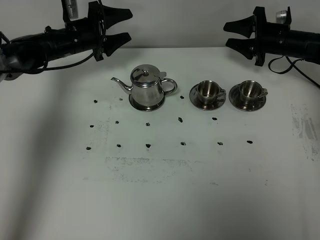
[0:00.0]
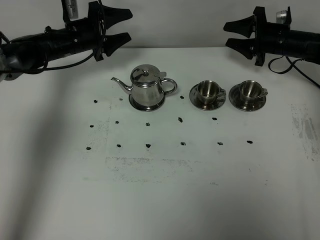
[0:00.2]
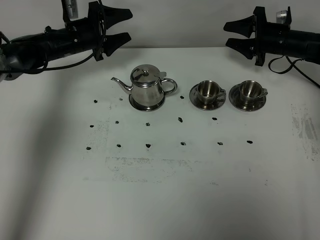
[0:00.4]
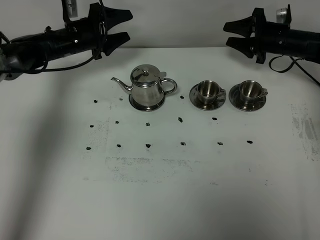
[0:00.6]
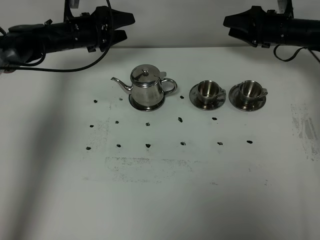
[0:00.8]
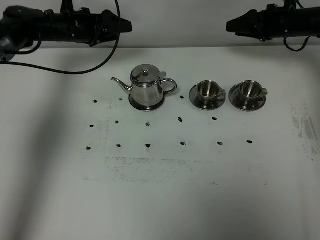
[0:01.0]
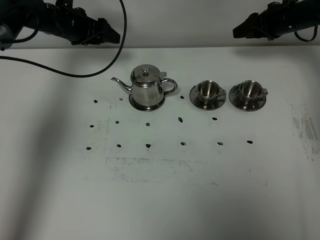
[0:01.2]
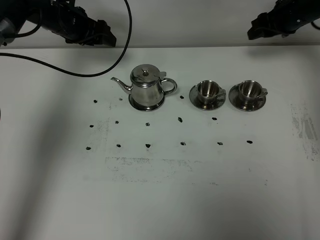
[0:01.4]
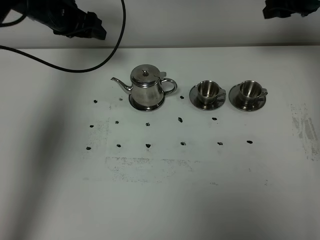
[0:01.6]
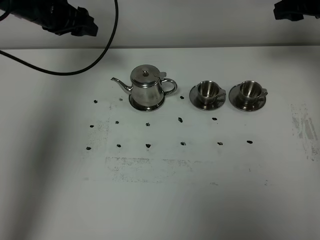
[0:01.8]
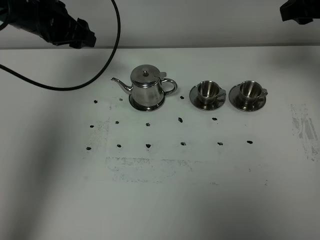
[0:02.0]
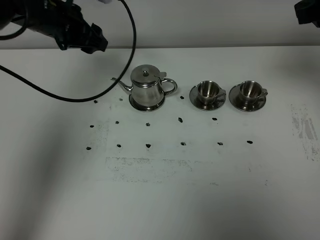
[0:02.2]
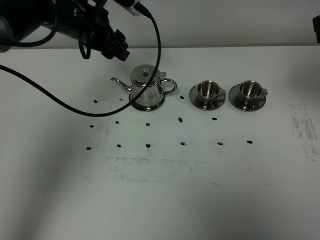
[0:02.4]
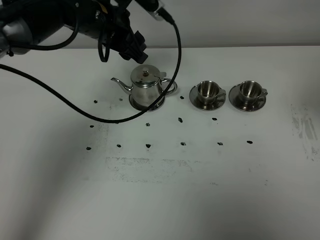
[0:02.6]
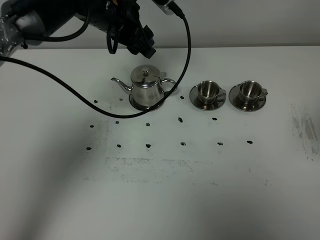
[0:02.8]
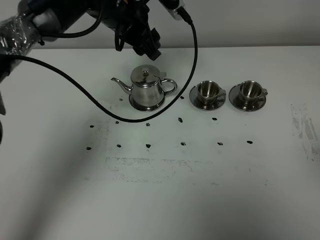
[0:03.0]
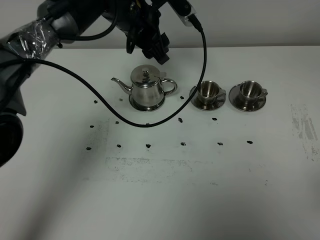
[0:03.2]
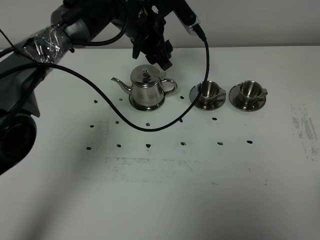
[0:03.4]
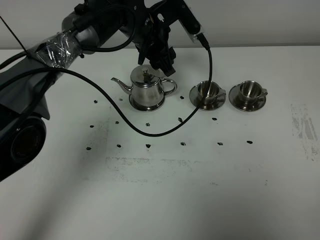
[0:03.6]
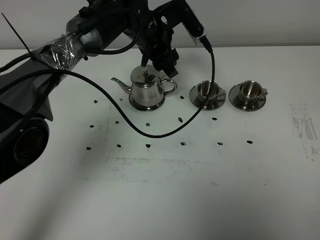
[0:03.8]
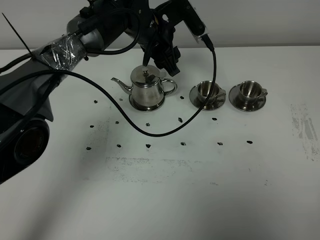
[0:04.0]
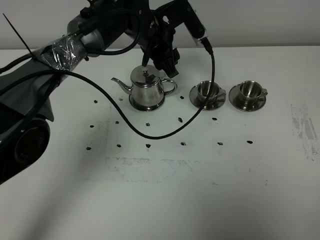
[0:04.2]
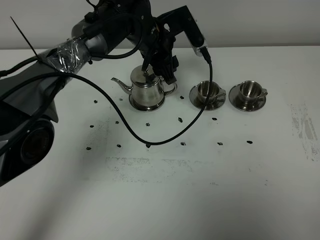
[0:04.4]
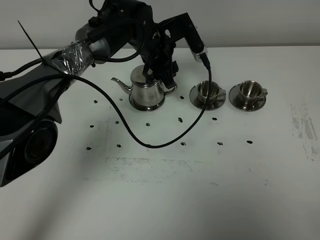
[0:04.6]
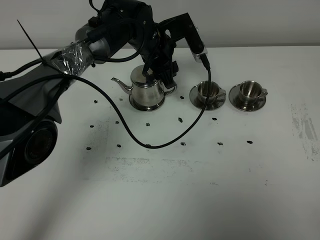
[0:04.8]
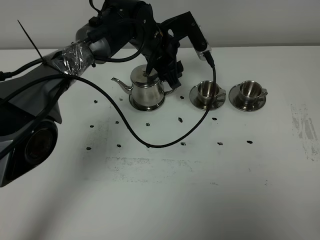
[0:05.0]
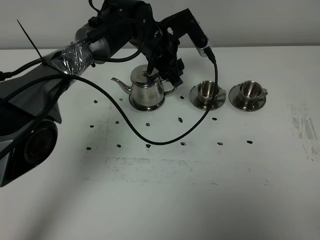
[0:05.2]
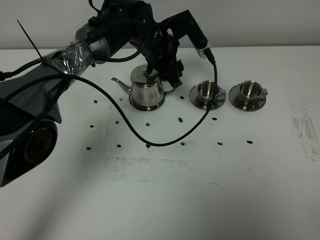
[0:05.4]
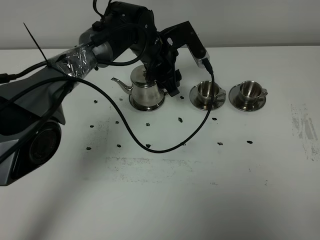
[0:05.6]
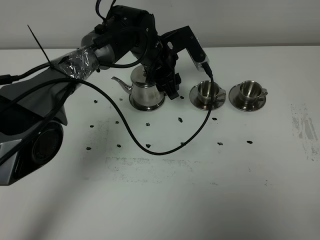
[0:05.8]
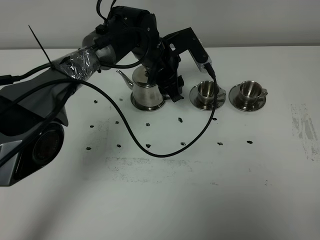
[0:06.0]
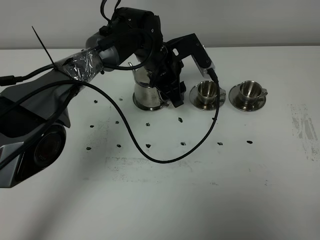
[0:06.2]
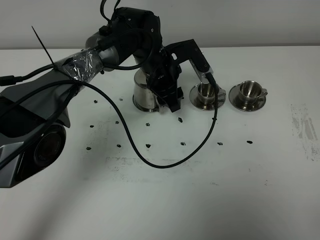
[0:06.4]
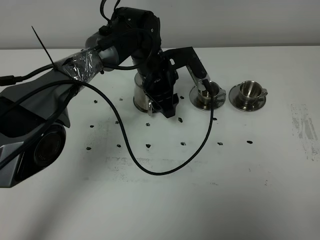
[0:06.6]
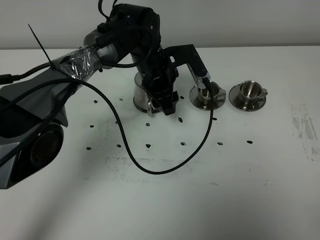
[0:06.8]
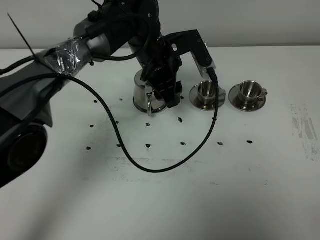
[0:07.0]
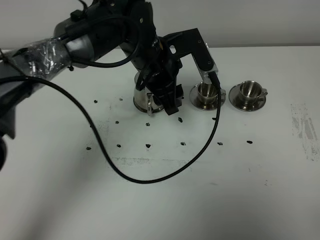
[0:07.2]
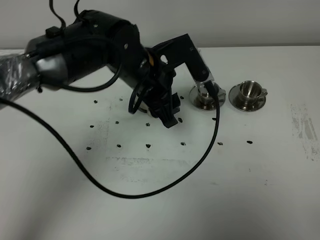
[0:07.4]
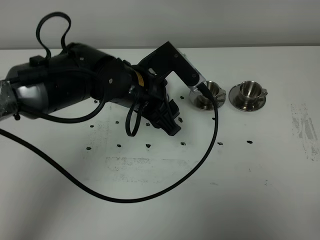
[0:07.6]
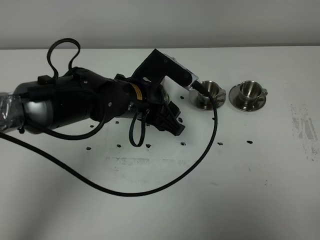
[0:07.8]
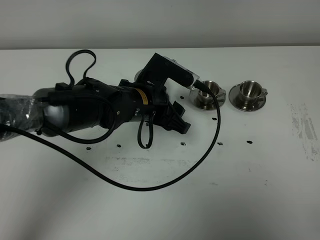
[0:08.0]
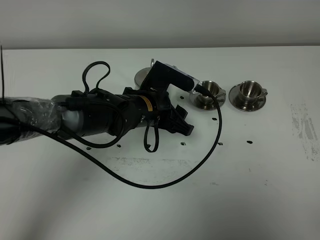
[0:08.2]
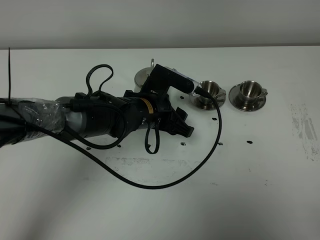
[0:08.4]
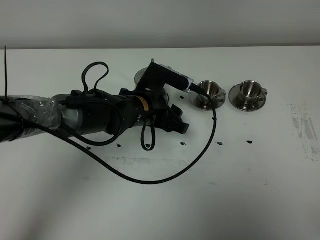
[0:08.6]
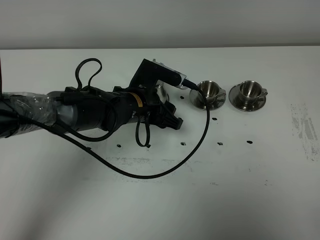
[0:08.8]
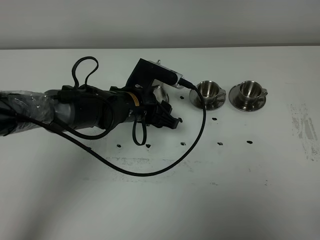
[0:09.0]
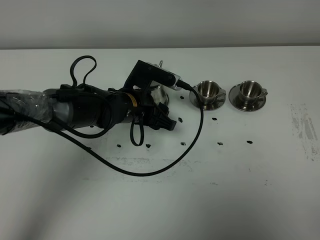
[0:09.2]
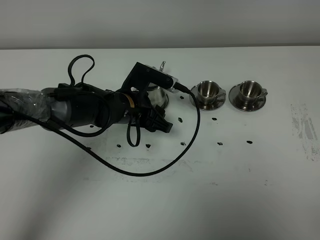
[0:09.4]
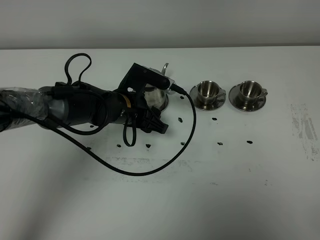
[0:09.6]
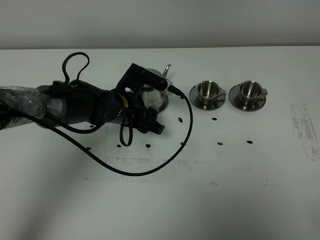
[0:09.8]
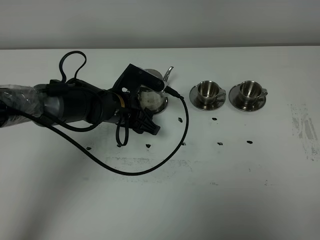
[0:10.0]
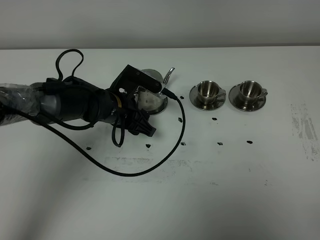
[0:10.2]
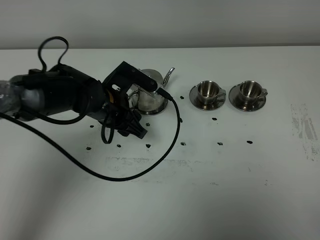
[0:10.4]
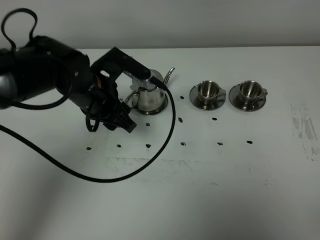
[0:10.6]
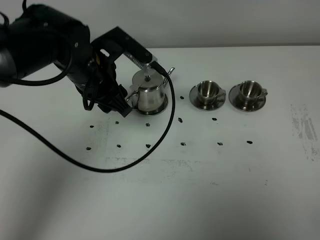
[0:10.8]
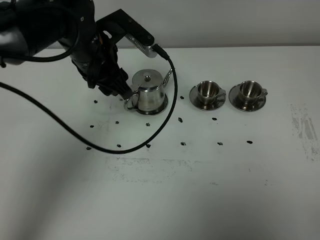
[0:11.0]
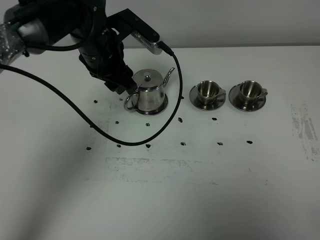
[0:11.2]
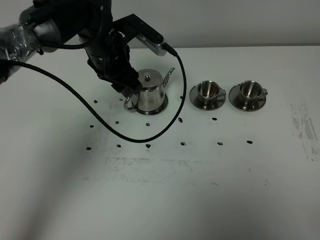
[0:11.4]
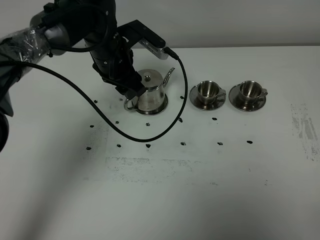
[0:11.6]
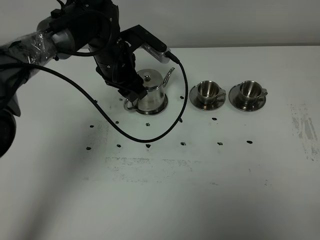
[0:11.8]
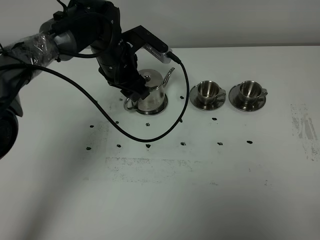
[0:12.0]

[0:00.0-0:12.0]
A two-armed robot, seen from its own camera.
Task of the whole recording: grasp the stainless steel teapot and pour the tea into the two stainless steel teacups one by one, put the stainless steel teapot back in its original place.
0:00.0 to 0:01.6: The right gripper is displaced upward by some 15 cm; the left gripper heads upward, covering some 10 cm.
0:01.6 to 0:03.0: The right gripper goes approximately 40 cm backward; the left gripper shifts approximately 15 cm to the right and backward.
0:03.0 to 0:04.4: The right gripper shifts roughly 10 cm downward and backward. The left gripper moves downward, approximately 5 cm.
0:04.4 to 0:06.0: There are only small adjustments of the grippers.
0:06.0 to 0:07.6: The left gripper travels backward by about 15 cm.
0:07.6 to 0:09.0: The left gripper shifts some 10 cm downward.
0:09.0 to 0:10.4: The left gripper moves some 5 cm.
0:10.4 to 0:12.0: The left gripper travels forward by roughly 10 cm.

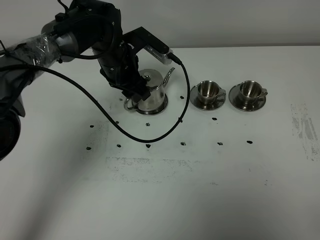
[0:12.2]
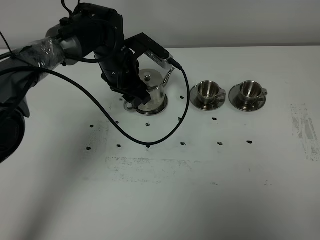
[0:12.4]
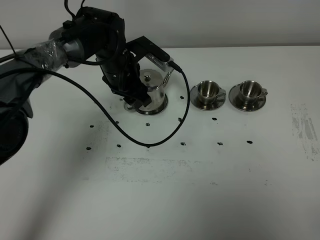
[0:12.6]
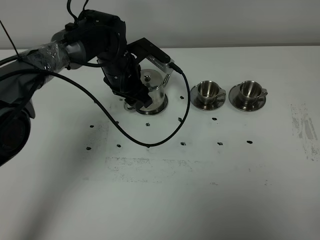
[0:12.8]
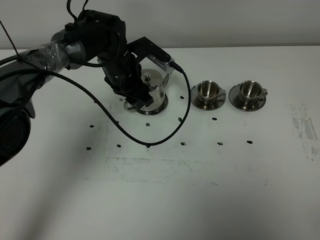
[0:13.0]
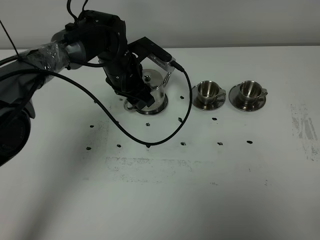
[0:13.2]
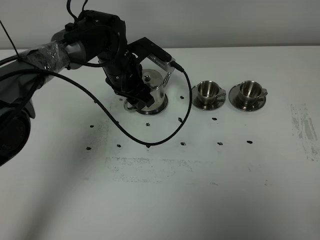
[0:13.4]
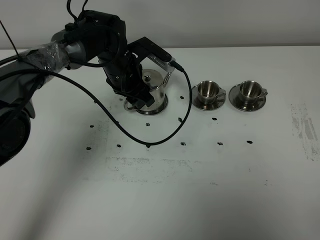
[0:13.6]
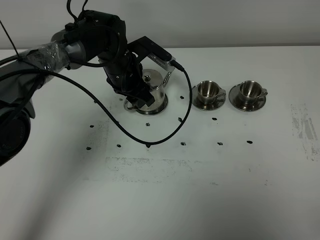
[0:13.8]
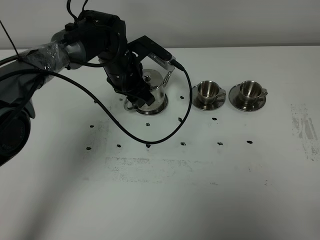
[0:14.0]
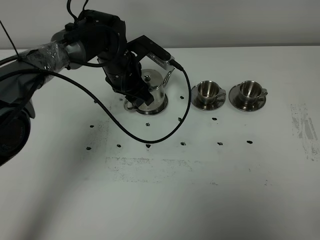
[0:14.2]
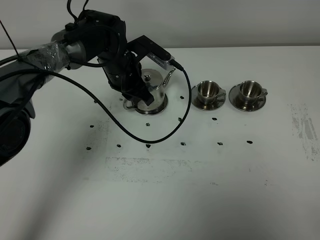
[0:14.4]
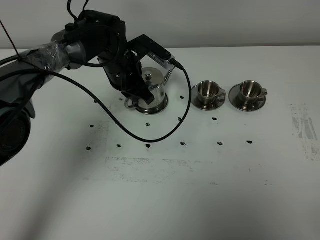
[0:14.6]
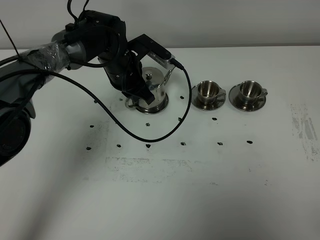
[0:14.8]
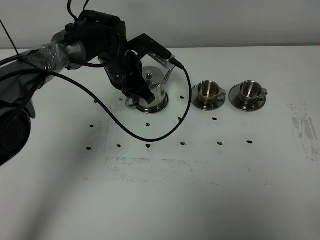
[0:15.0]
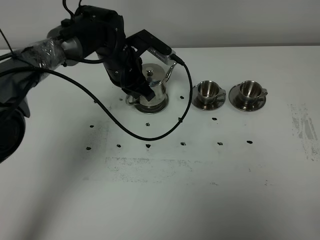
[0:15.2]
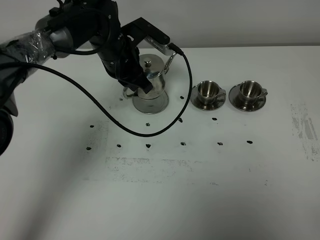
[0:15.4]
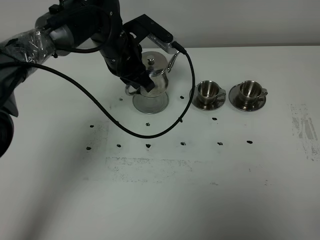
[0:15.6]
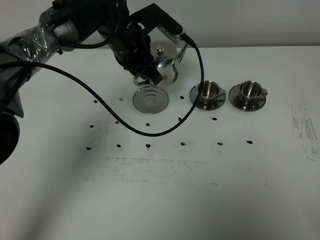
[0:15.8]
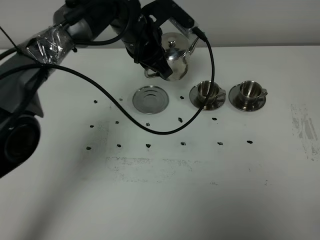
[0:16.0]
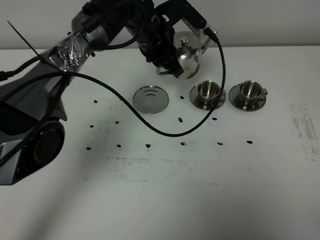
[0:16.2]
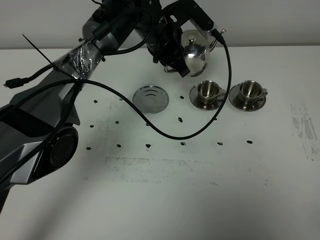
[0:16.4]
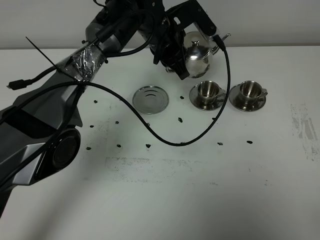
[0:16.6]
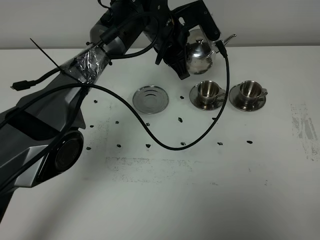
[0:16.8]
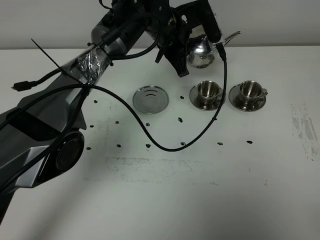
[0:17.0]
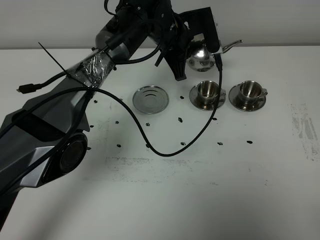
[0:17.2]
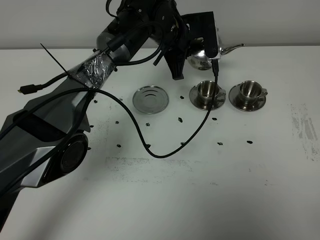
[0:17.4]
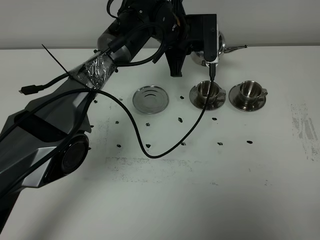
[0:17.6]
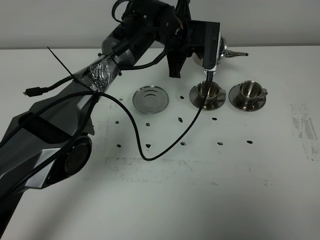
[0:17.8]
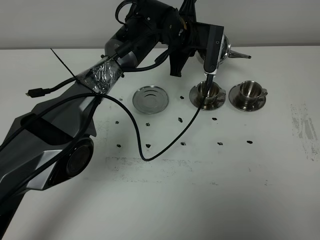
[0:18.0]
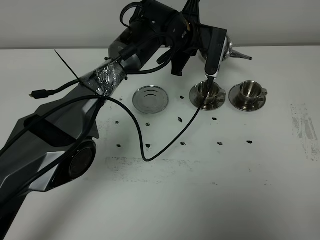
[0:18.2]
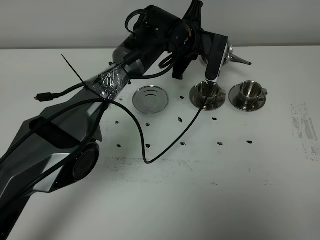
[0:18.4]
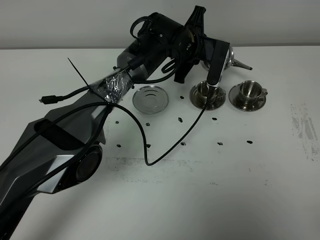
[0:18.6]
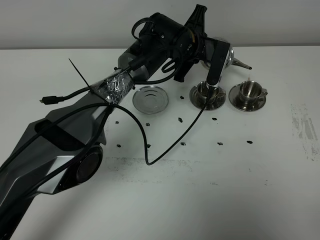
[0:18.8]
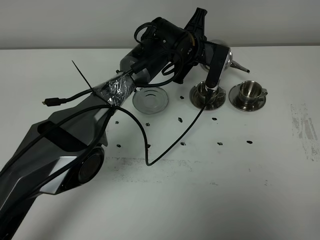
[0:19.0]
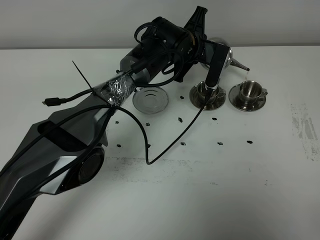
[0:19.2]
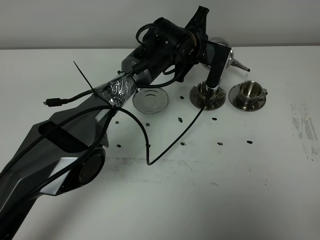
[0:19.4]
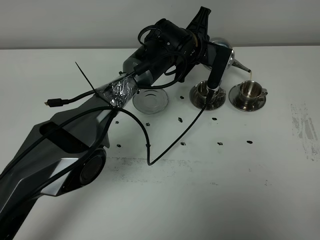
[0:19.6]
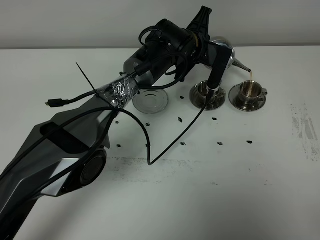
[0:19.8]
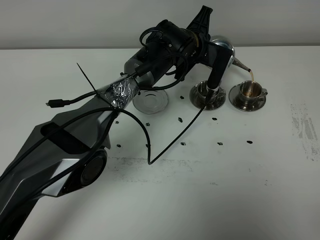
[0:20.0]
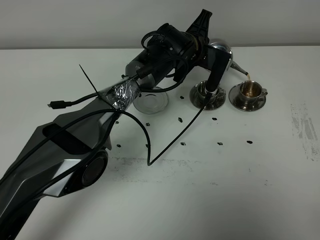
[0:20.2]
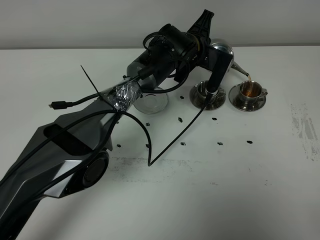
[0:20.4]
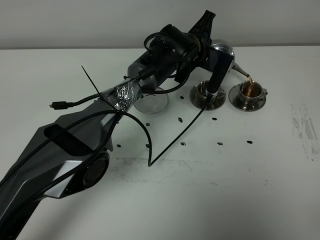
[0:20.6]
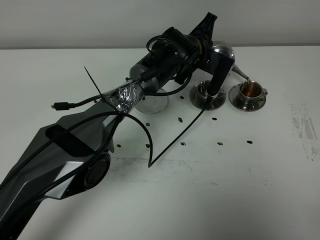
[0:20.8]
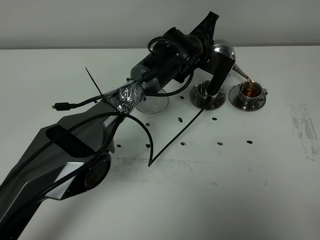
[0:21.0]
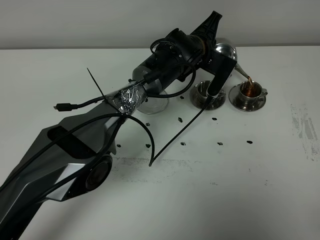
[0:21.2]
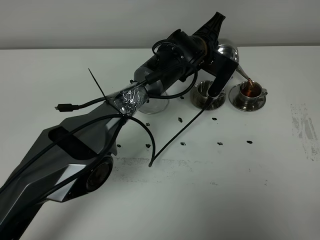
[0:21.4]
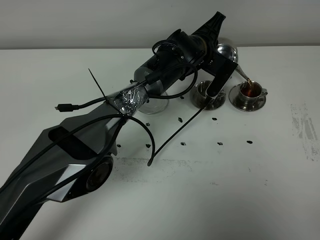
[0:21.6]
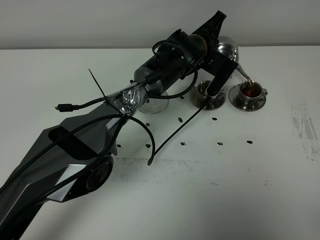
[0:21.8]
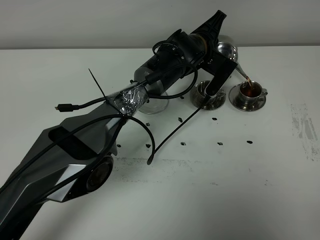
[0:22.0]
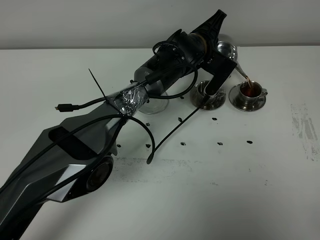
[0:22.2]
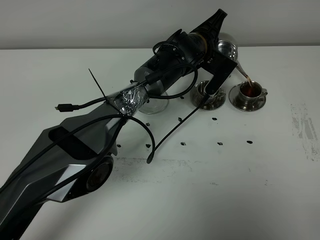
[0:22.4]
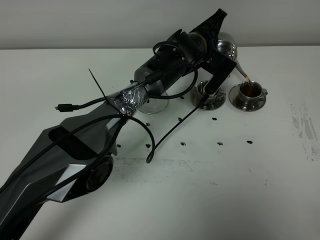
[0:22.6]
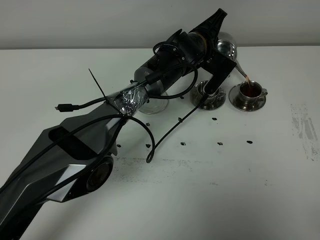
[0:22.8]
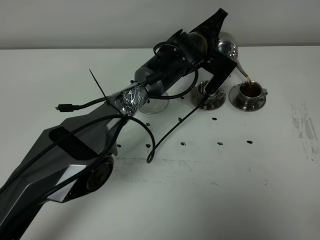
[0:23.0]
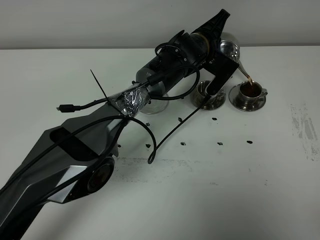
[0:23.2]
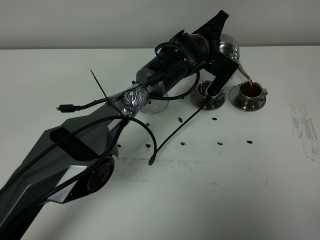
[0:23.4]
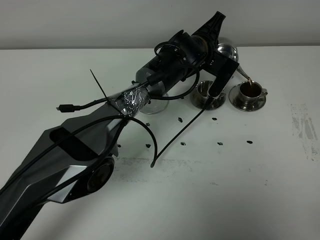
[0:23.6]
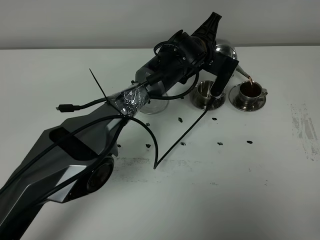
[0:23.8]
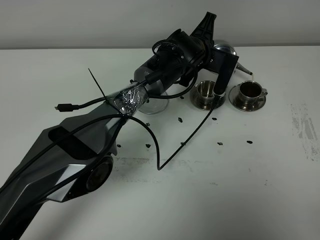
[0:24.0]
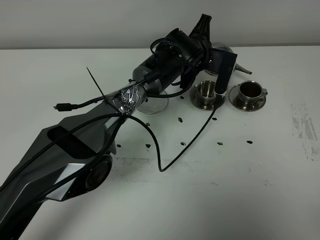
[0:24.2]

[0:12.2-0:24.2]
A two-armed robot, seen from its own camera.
Task of the whole recording: grasp the stainless steel teapot and pour the tea into the two stainless steel teacups one by one, put the stainless steel teapot back in its original place.
Step, 0:12.2 to 0:15.2: Pick up the teapot with the left gripper.
0:12.2 to 0:13.8: There are only small adjustments of the grippers.
0:13.8 to 0:15.2: The left gripper closes up.
0:15.2 to 0:16.6: The left gripper shifts about 10 cm to the right.
0:19.8 to 0:22.6: There are only small adjustments of the grippers.
